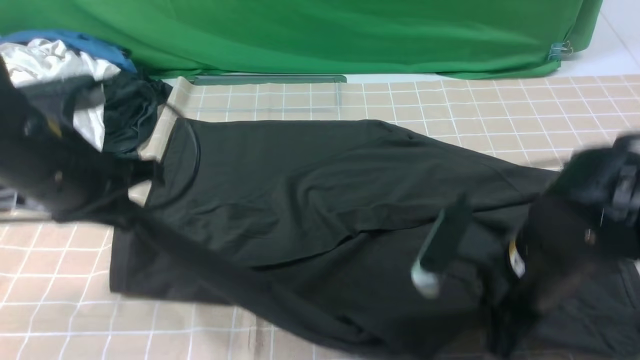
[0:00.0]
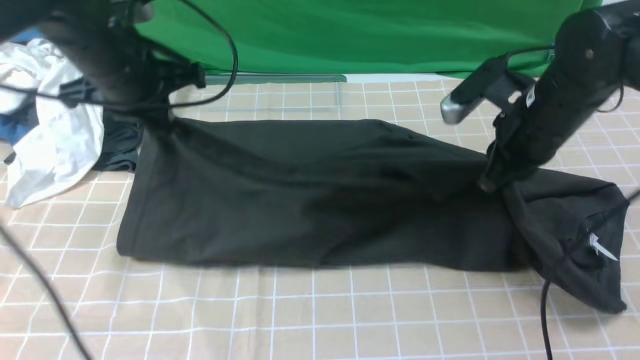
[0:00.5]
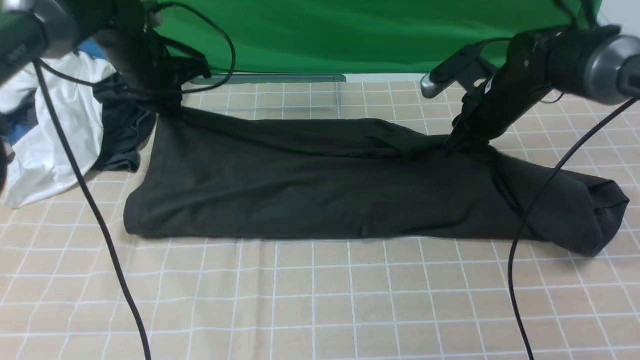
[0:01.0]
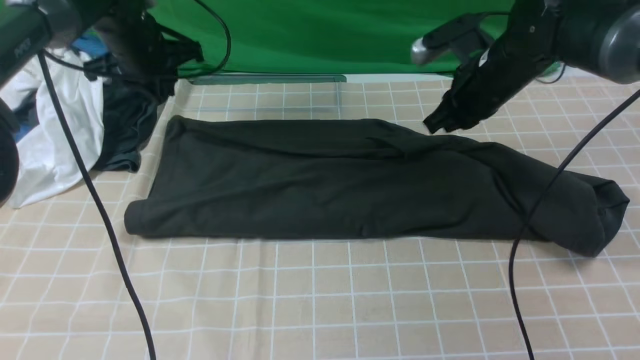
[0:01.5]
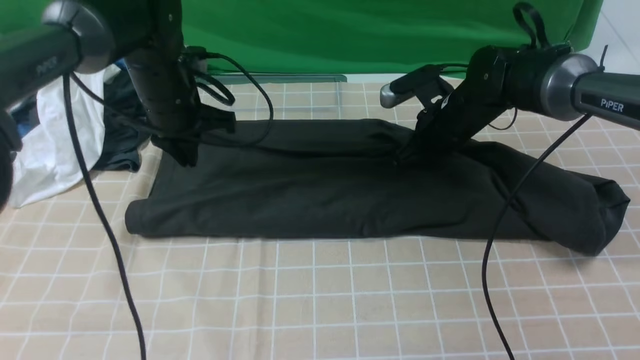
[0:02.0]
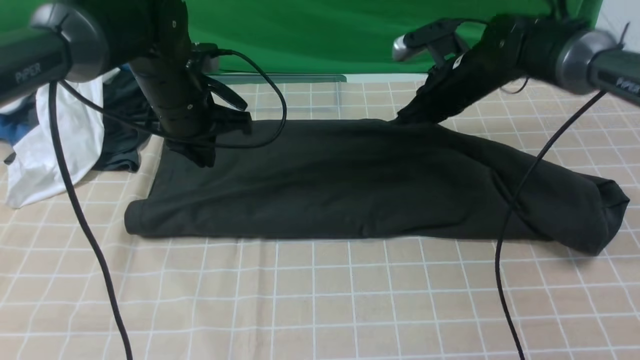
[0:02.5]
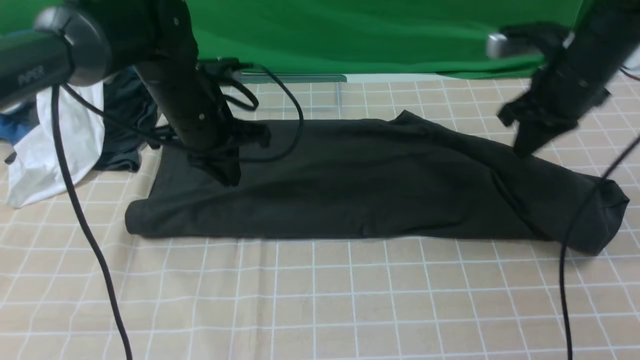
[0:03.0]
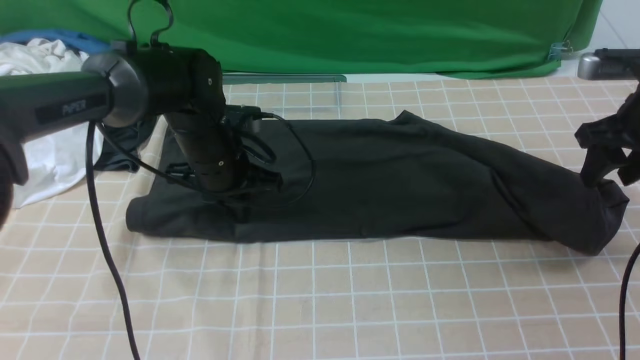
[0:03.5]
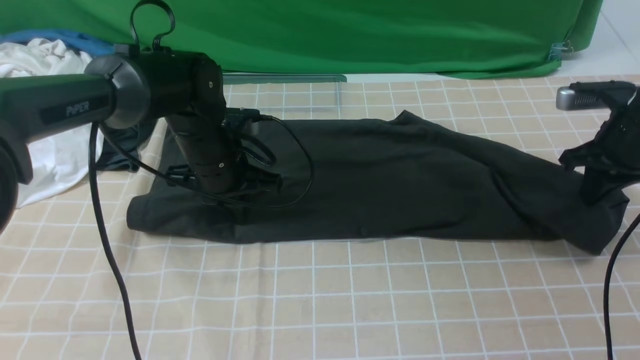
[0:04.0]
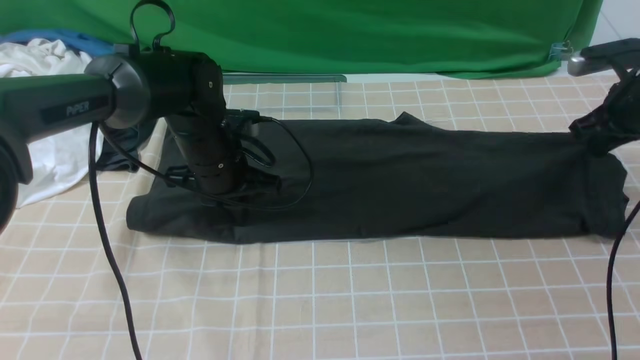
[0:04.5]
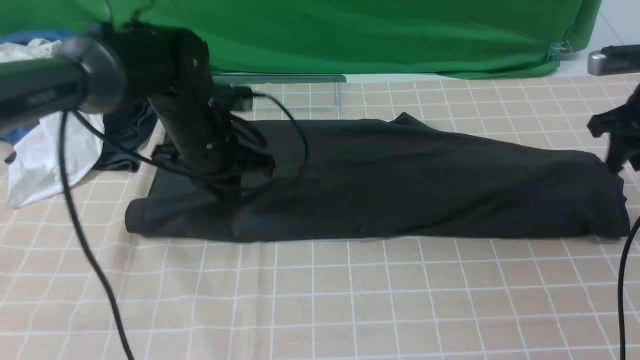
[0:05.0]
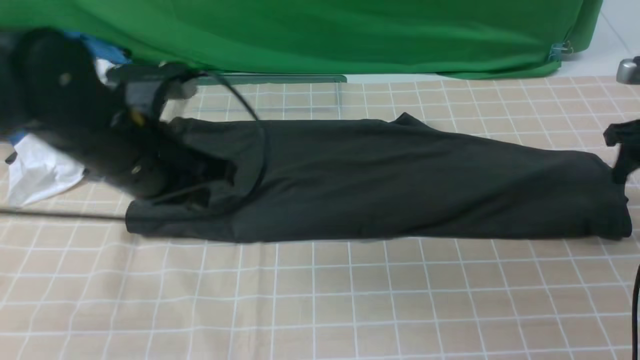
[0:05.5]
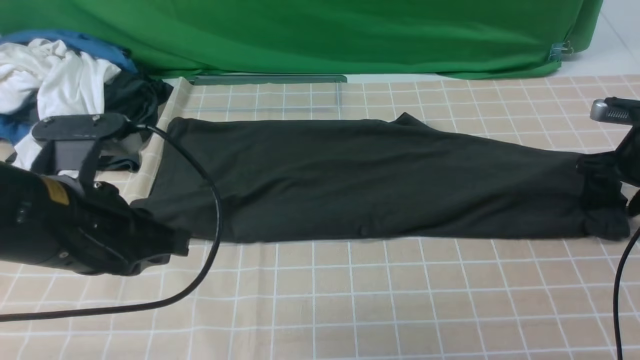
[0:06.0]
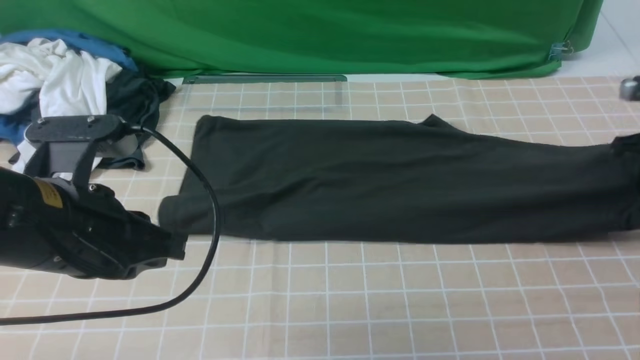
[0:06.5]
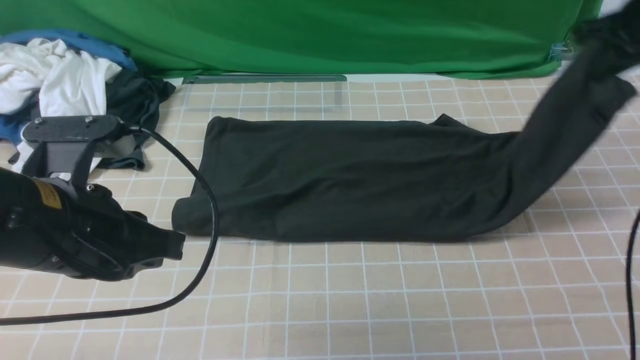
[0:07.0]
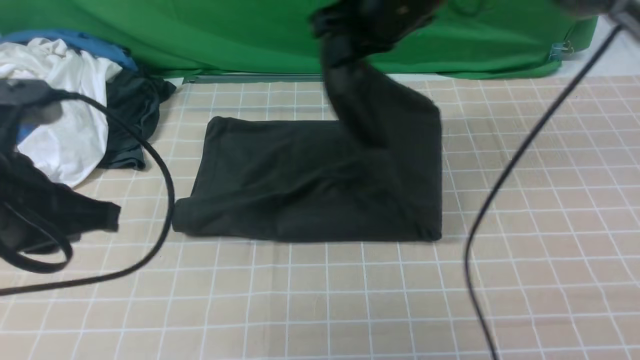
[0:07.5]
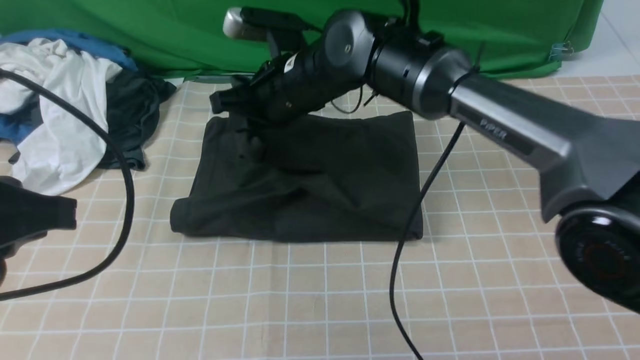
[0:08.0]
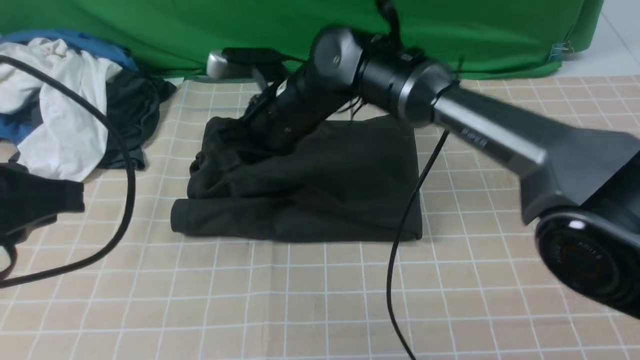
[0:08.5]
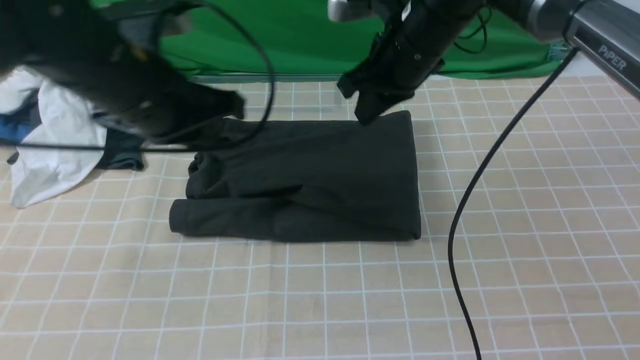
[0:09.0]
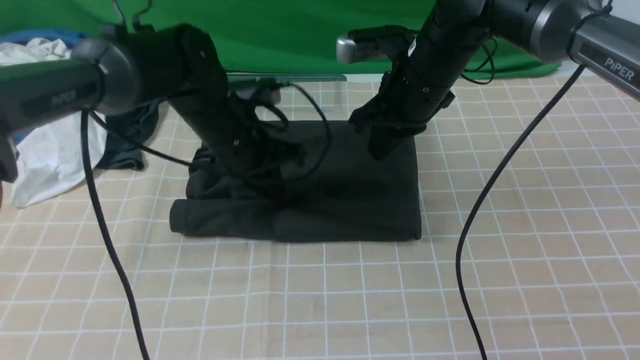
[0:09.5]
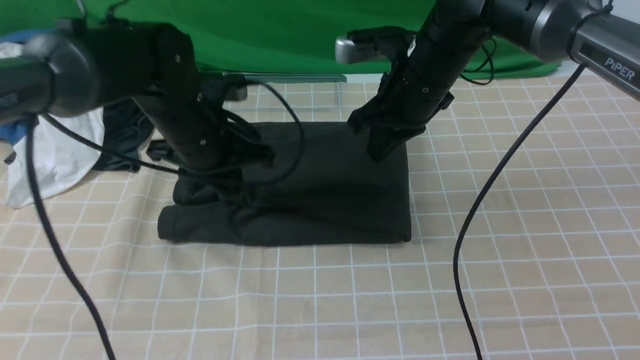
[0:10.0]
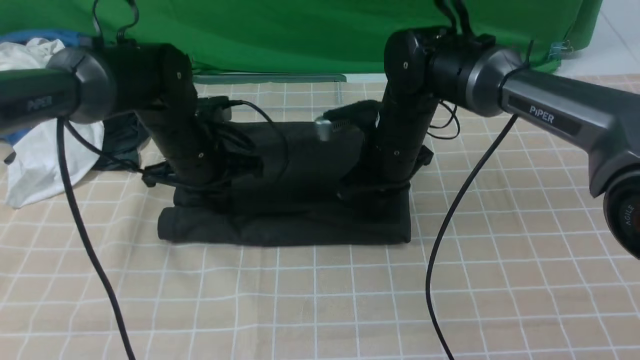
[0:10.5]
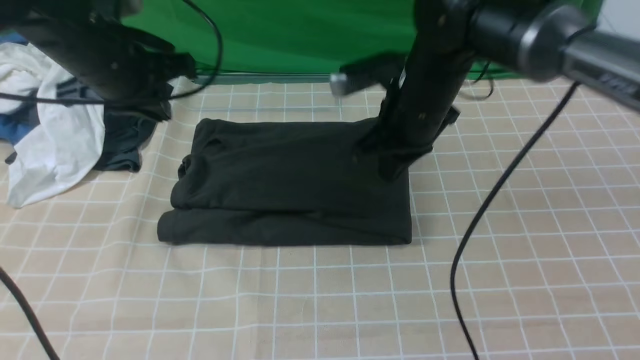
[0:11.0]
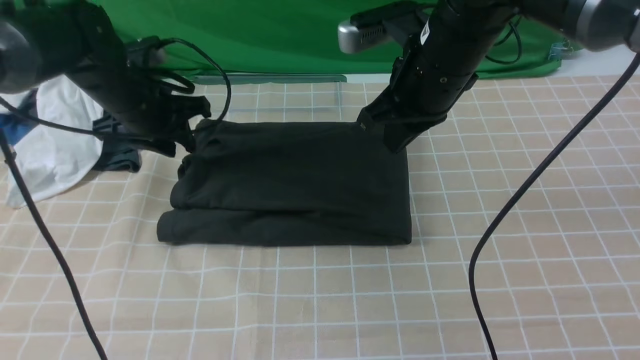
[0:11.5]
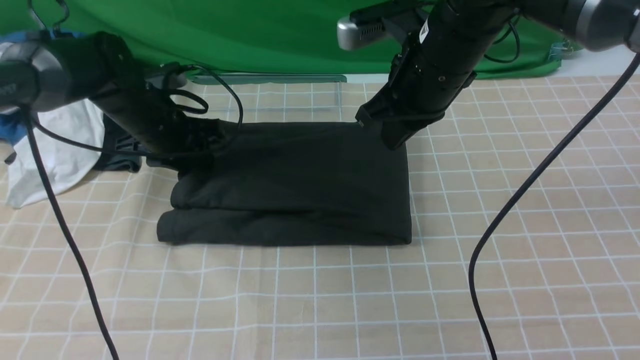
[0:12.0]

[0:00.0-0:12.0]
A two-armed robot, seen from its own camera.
Step, 0:00.0 to 0:01.5: use both arms to drag the lower edge of the fabric forward and fold it over the upper edge.
Step, 0:02.0 to 0:06.5: use the right arm to clamp the right edge of the fabric.
Step, 0:07.0 to 0:08.5: use the right arm to drag the right edge of the fabric to the left and folds it over the left edge.
0:00.0 to 0:02.0: The two grippers go roughly 20 cm forward.
0:02.0 to 0:04.0: The right gripper heads to the right, covering approximately 20 cm, and opens, then closes once more. Meanwhile the left gripper travels downward by roughly 5 cm.
0:04.0 to 0:06.0: The left gripper moves backward and upward, roughly 20 cm, while the right gripper moves downward, about 5 cm, and opens its fingers.
0:06.0 to 0:08.0: The left gripper is displaced upward by some 5 cm; the right gripper goes roughly 40 cm to the left, and closes up.
0:08.0 to 0:10.0: The right gripper goes some 10 cm to the right, while the left gripper goes about 25 cm forward, downward and to the right.
0:10.0 to 0:12.0: The left gripper is displaced to the left and forward by roughly 10 cm, and opens its fingers, while the right gripper is displaced upward by some 5 cm.

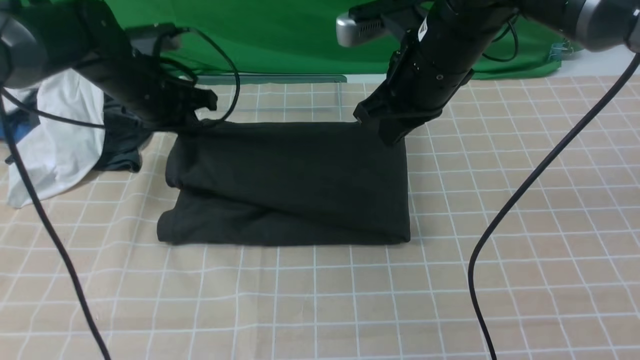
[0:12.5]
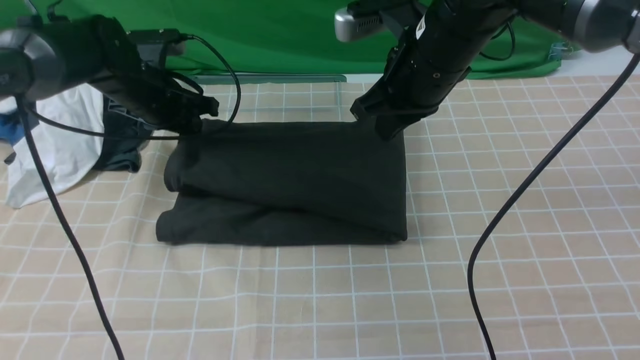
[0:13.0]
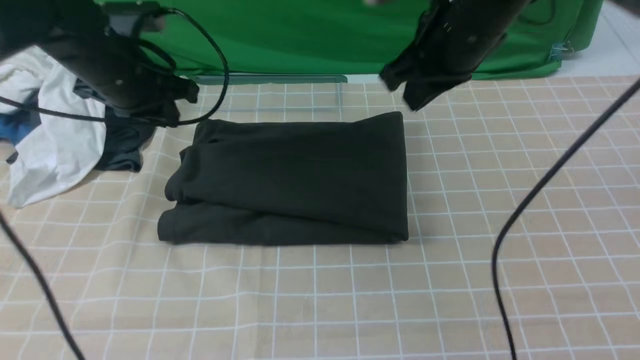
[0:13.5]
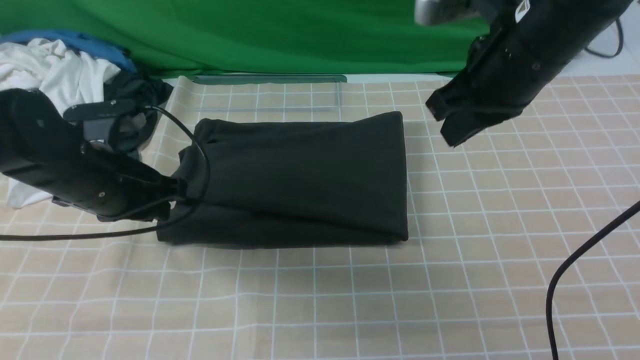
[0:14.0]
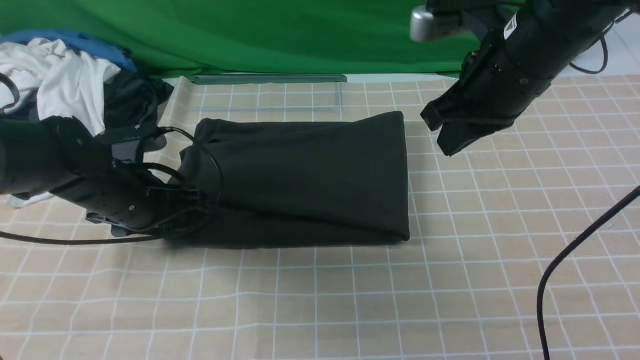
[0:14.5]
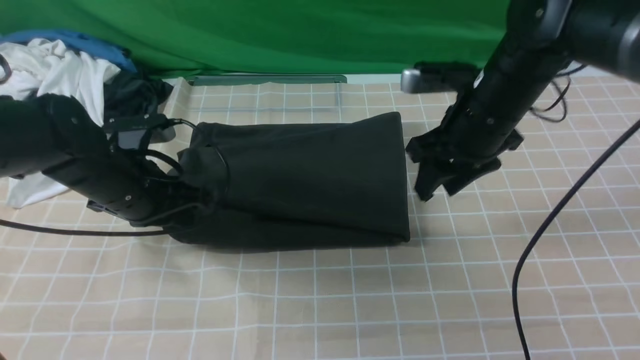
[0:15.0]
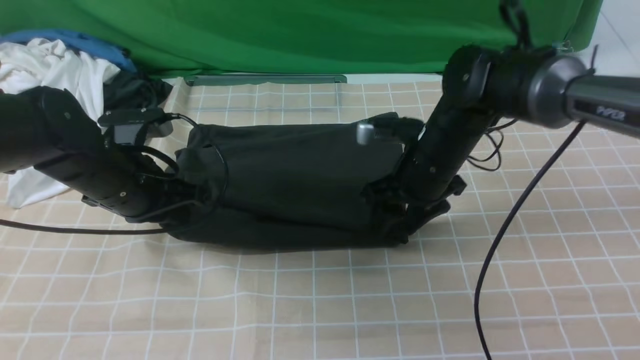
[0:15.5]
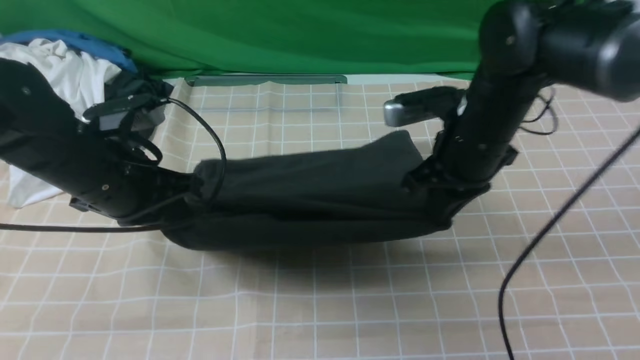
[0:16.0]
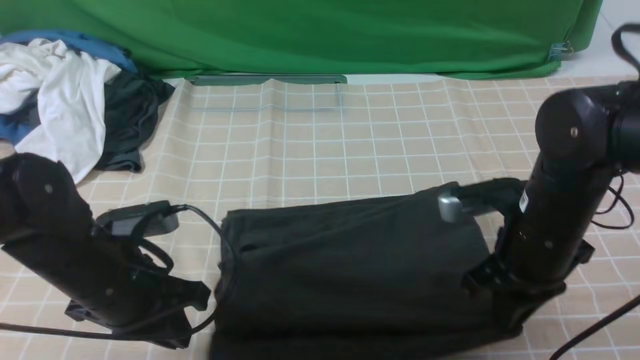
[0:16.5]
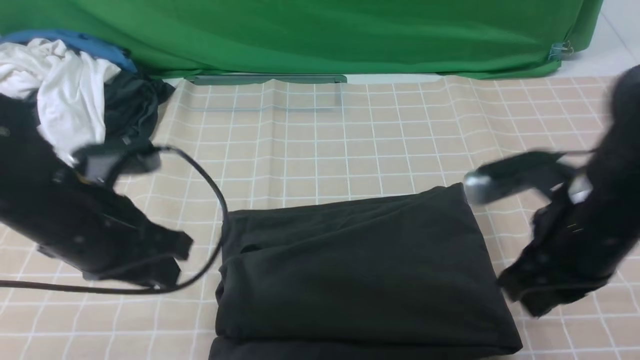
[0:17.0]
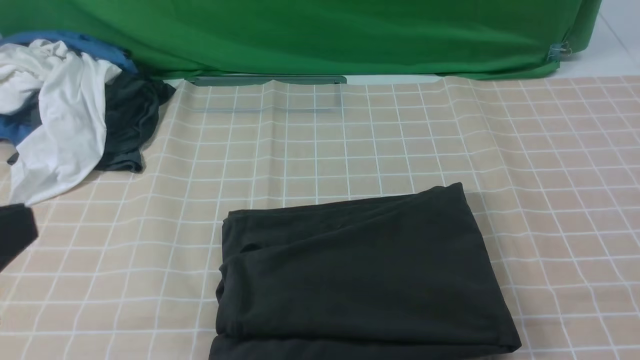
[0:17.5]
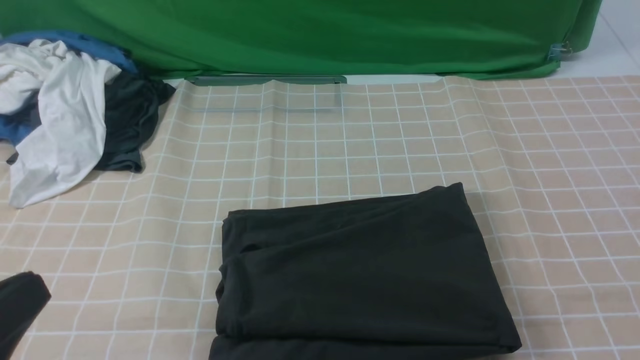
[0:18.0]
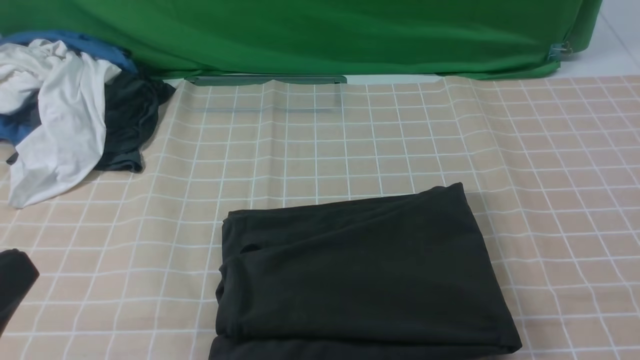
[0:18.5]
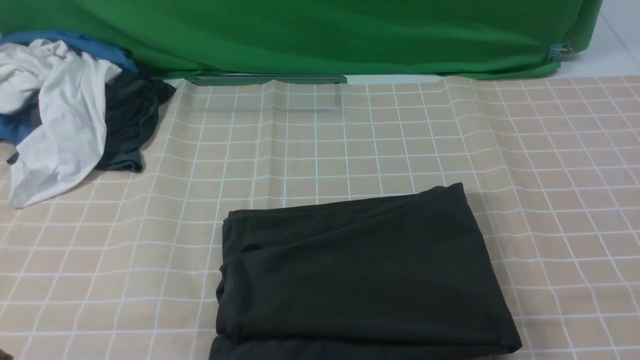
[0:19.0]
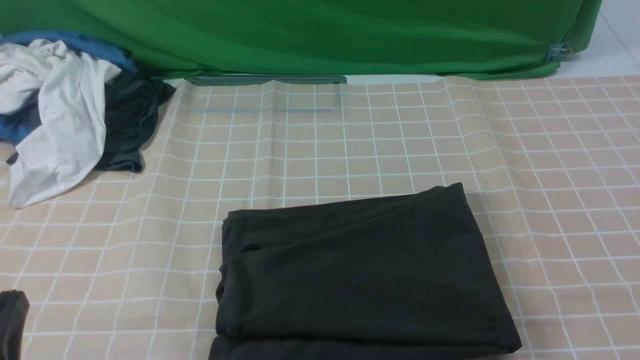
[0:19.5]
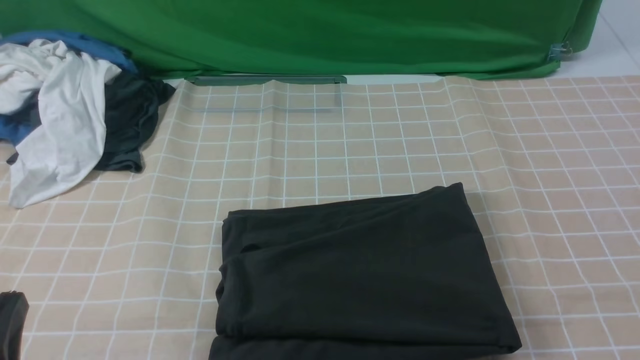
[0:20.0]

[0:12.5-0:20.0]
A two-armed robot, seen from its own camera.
0:12.5 to 0:14.5: The right gripper travels to the right by roughly 5 cm, while the left gripper travels backward and downward by some 15 cm, and opens up.
0:14.5 to 0:16.5: The left gripper goes about 10 cm backward, and closes up; the right gripper moves downward and backward, roughly 15 cm, and opens, then closes once more.
0:16.5 to 0:18.0: The right gripper heads backward, upward and to the right, covering about 30 cm; the left gripper travels backward and upward by about 20 cm.
0:18.0 to 0:20.0: The left gripper moves downward, about 10 cm.
